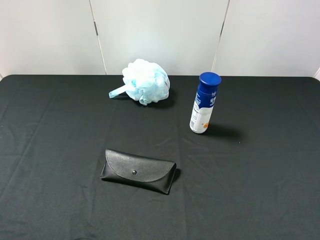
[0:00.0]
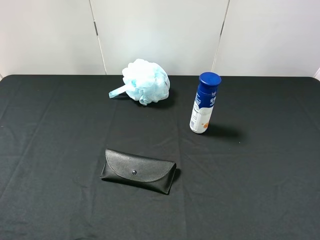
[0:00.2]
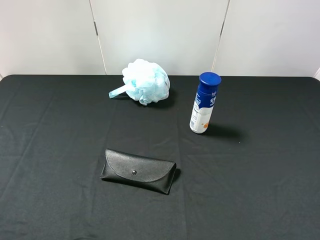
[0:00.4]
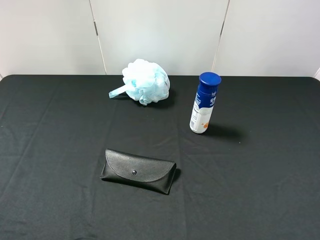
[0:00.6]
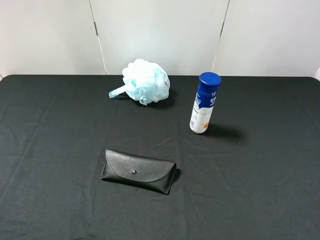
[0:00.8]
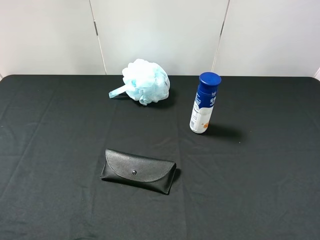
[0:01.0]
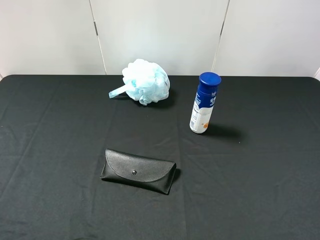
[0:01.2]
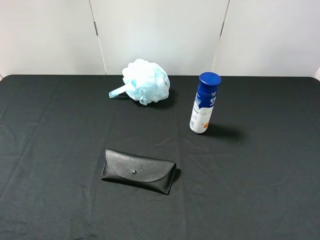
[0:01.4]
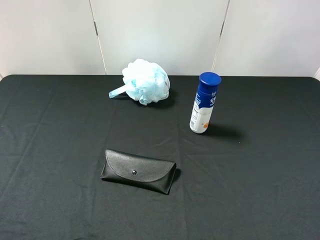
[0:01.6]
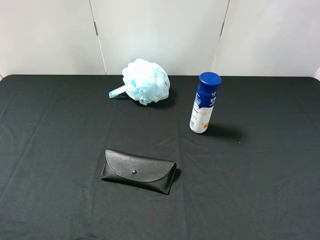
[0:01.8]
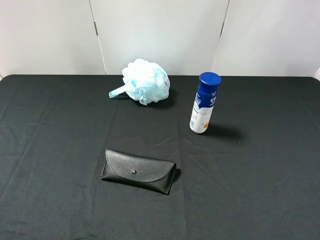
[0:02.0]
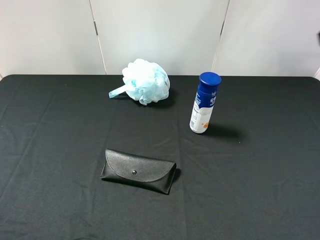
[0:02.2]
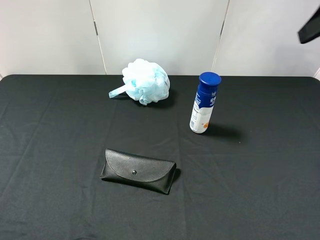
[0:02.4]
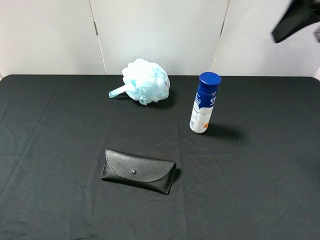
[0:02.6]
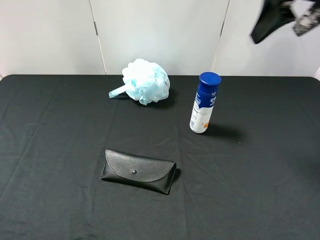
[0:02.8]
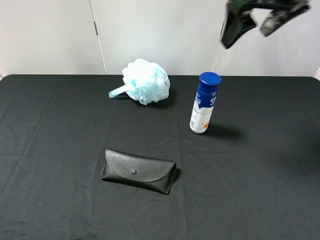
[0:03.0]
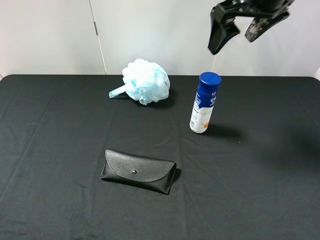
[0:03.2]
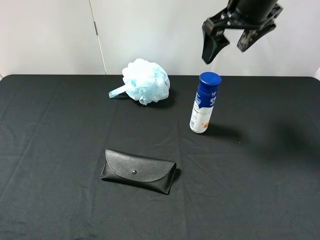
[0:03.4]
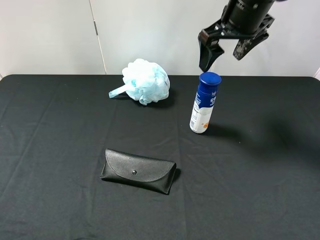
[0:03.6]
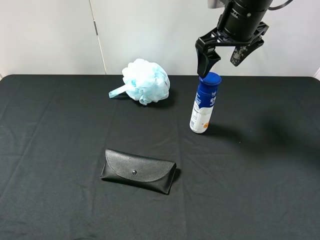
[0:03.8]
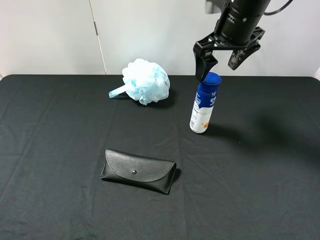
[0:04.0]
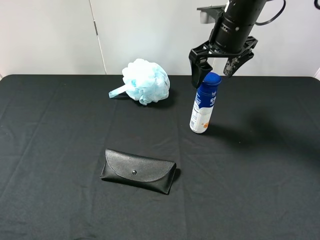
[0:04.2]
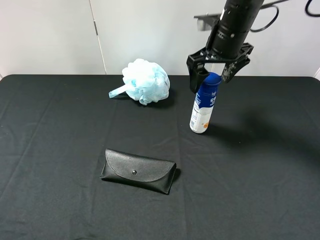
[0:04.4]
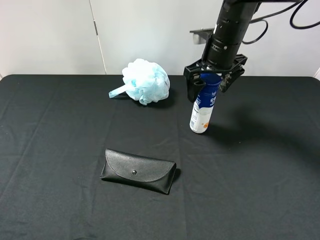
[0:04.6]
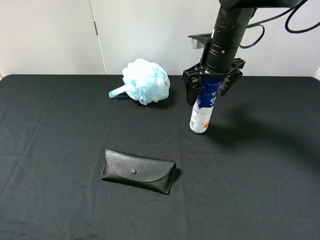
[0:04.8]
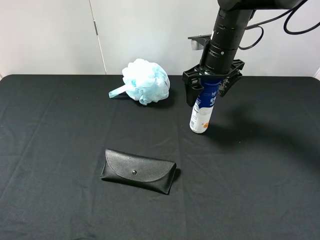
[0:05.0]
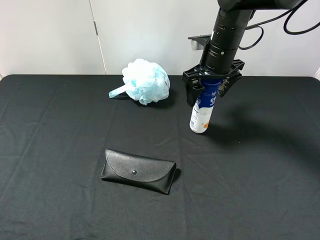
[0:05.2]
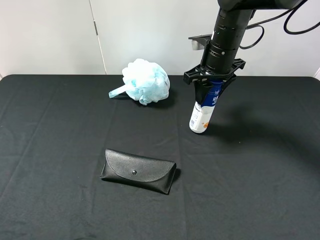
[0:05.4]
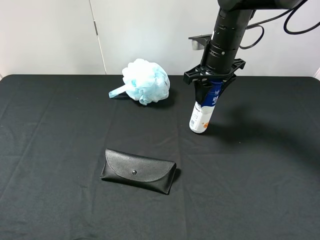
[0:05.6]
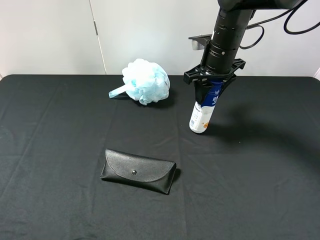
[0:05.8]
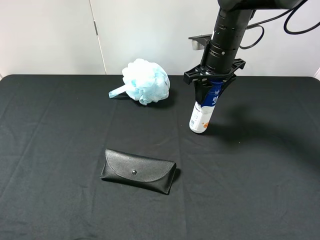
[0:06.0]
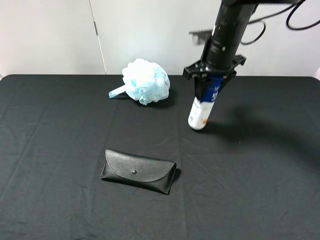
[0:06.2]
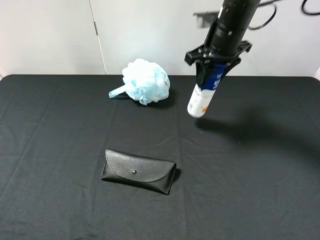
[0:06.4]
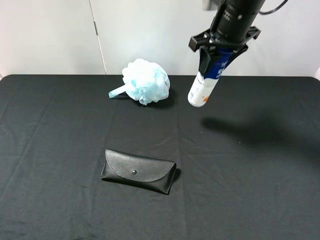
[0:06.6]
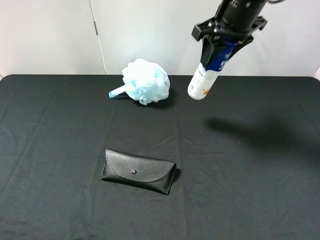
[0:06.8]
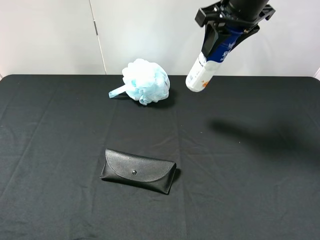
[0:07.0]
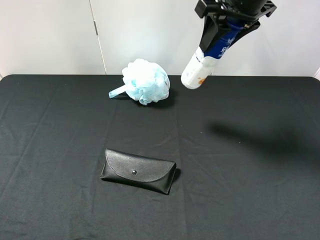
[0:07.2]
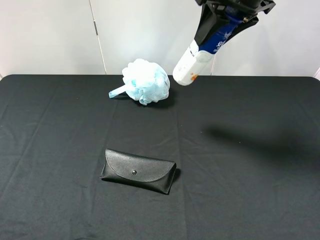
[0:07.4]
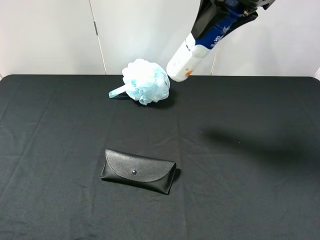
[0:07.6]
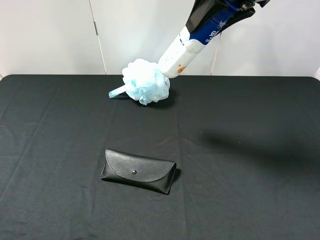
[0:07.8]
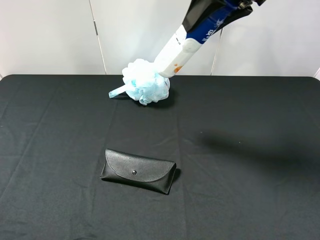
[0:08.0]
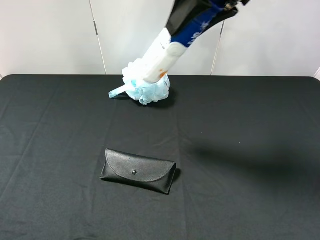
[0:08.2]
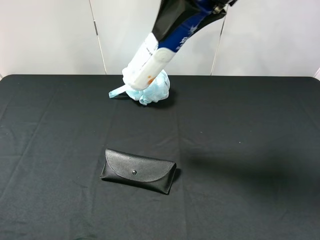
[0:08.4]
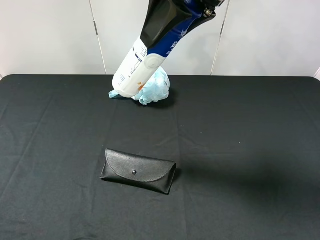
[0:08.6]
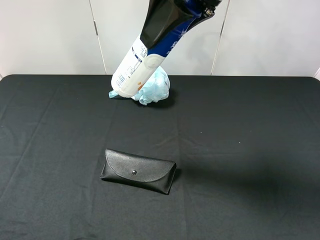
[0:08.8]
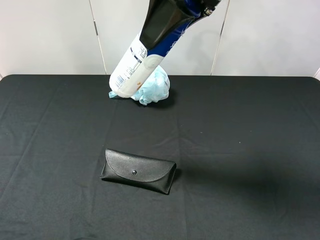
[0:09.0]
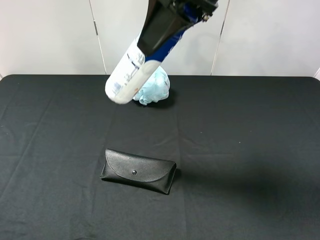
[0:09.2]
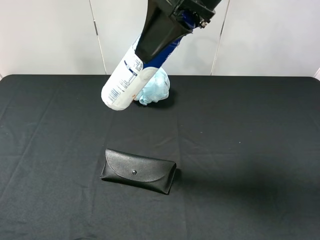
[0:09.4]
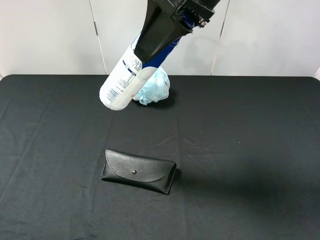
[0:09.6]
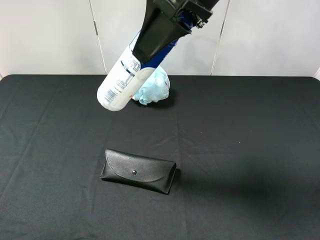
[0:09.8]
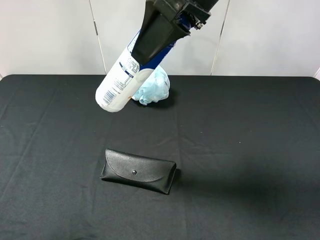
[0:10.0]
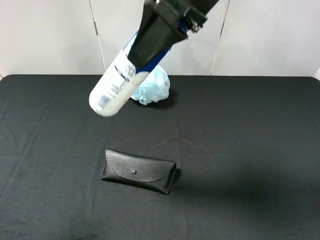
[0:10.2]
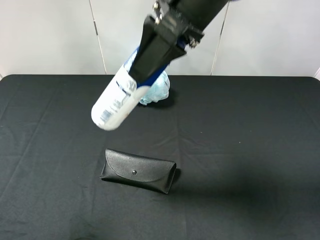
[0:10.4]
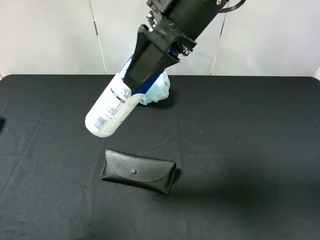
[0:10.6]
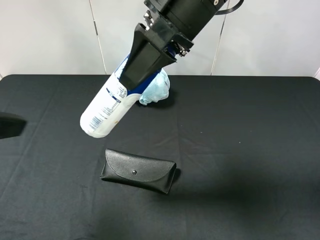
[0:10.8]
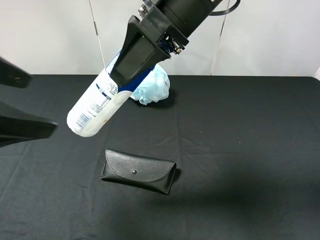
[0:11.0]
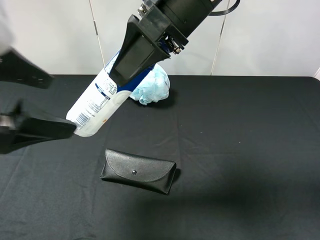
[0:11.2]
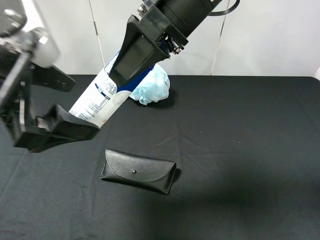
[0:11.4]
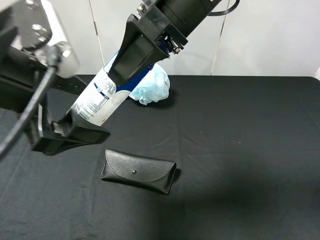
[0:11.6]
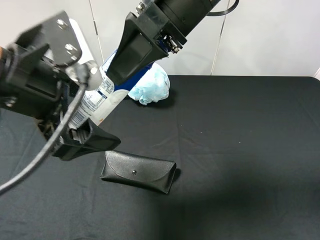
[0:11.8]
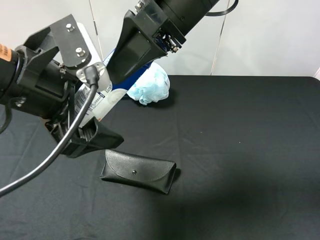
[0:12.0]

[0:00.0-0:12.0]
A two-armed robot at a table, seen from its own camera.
Task of the whole recording: use the right gripper to pick up the item and transfer it from the right gripper to the left gripper.
Step, 0:00.0 to 0:05.6: Use the right gripper to grab the yogurt on the right side of the table.
0:01.6 to 0:03.0: The right gripper travels forward and to the left by about 30 cm.
0:03.0 to 0:04.4: The right gripper travels downward and forward by roughly 15 cm.
0:04.4 to 0:06.0: The right gripper closes its fingers.
0:06.0 to 0:07.6: The right gripper moves upward and backward, approximately 15 cm.
0:07.6 to 0:09.0: The right gripper is displaced to the left and backward by roughly 10 cm.
0:09.0 to 0:10.4: The left gripper moves forward and upward, approximately 10 cm.
0:10.4 to 0:12.0: The left gripper shifts about 15 cm to the right, forward and downward.

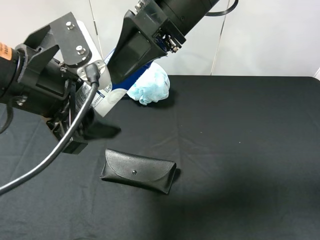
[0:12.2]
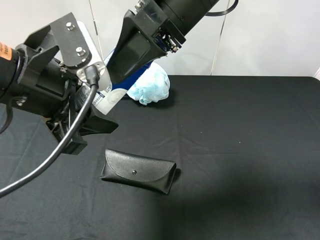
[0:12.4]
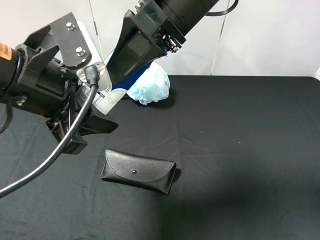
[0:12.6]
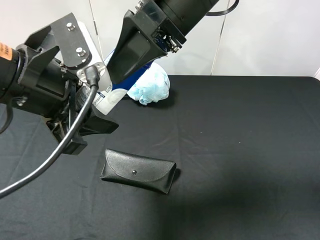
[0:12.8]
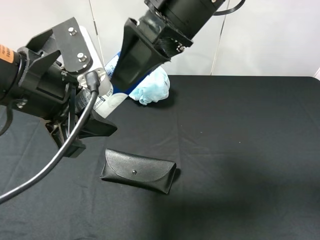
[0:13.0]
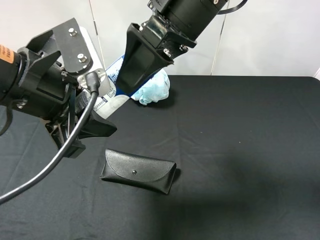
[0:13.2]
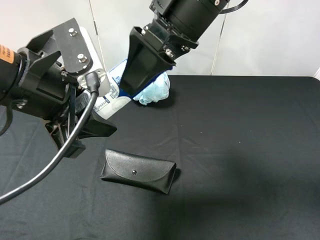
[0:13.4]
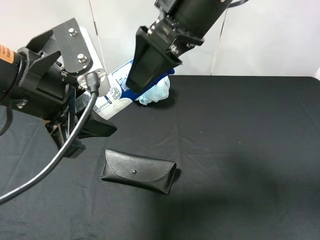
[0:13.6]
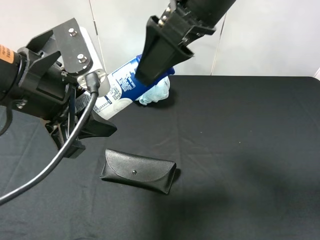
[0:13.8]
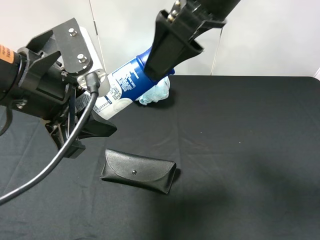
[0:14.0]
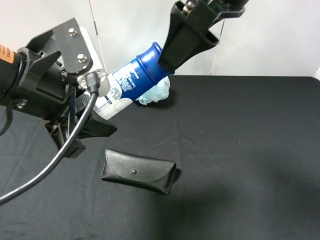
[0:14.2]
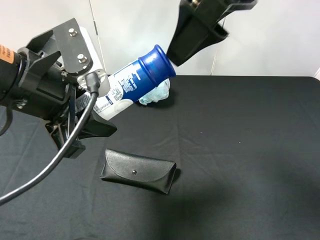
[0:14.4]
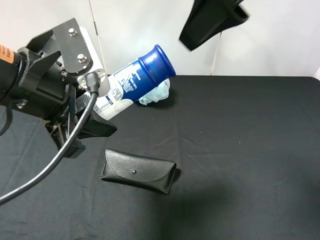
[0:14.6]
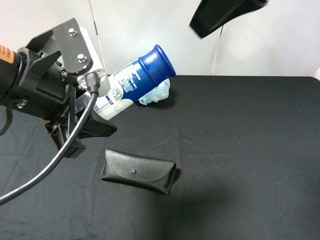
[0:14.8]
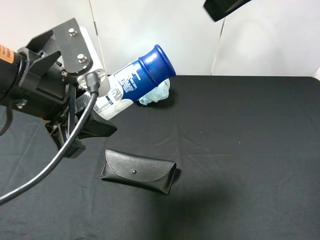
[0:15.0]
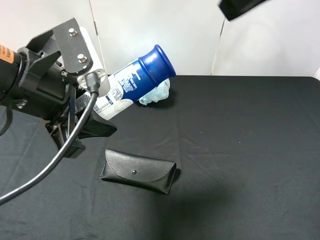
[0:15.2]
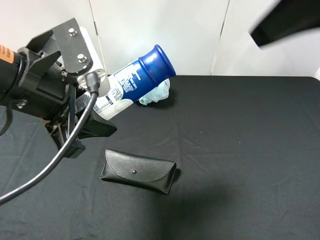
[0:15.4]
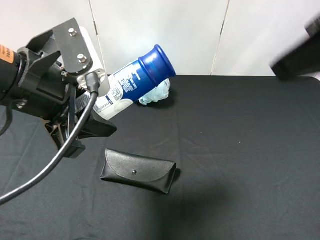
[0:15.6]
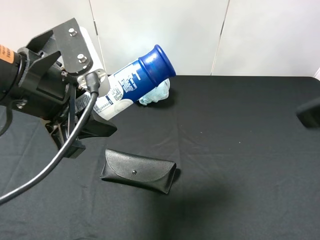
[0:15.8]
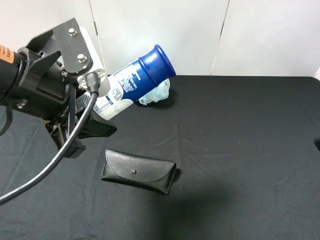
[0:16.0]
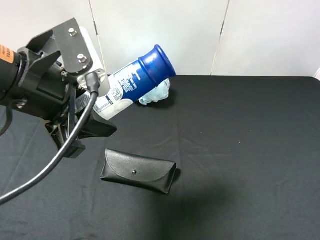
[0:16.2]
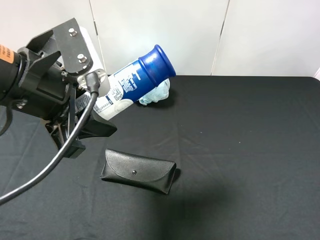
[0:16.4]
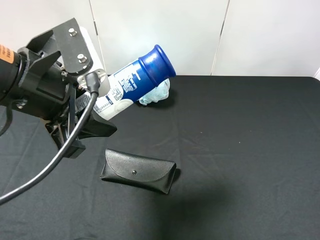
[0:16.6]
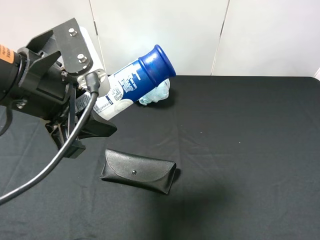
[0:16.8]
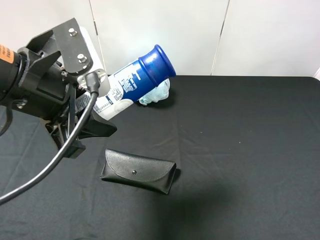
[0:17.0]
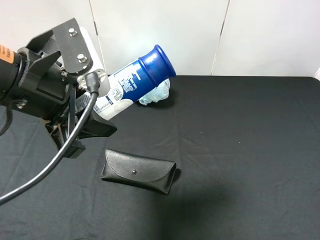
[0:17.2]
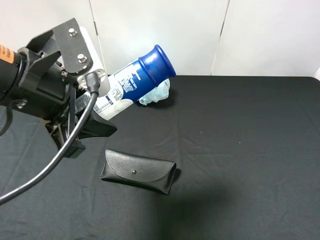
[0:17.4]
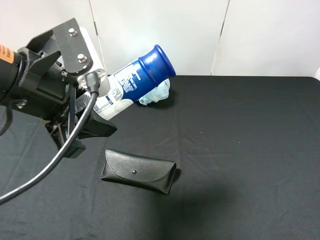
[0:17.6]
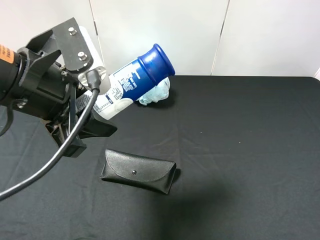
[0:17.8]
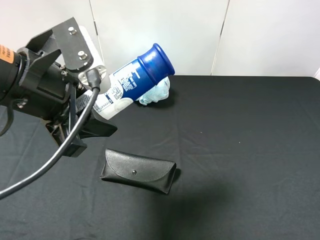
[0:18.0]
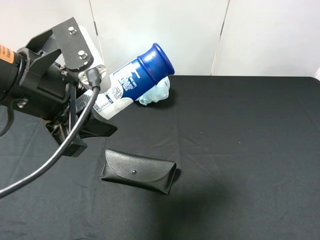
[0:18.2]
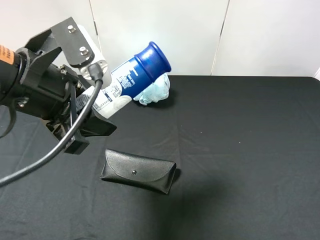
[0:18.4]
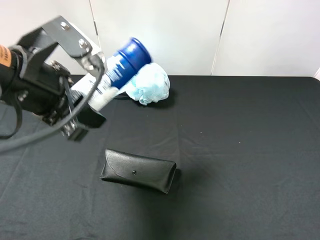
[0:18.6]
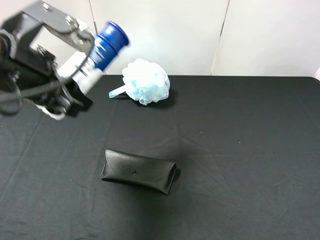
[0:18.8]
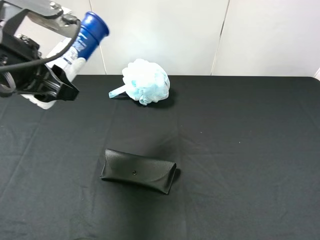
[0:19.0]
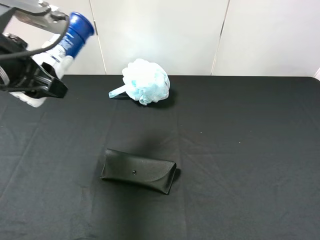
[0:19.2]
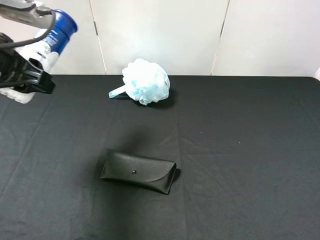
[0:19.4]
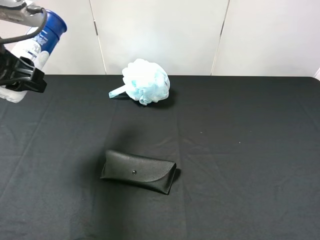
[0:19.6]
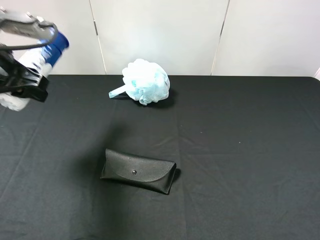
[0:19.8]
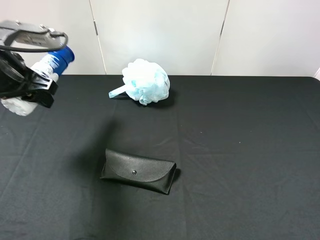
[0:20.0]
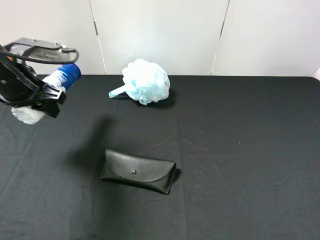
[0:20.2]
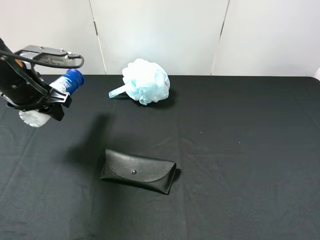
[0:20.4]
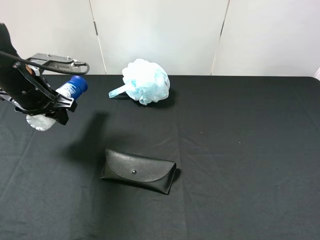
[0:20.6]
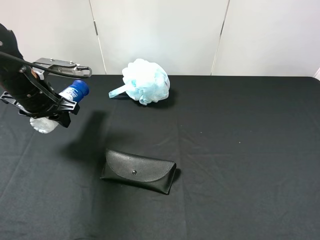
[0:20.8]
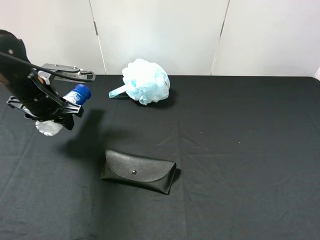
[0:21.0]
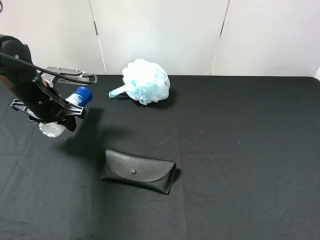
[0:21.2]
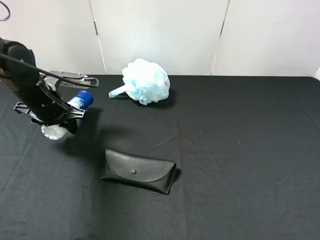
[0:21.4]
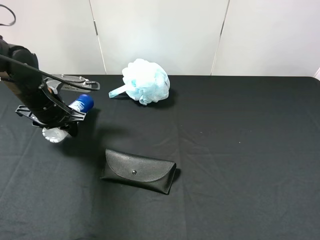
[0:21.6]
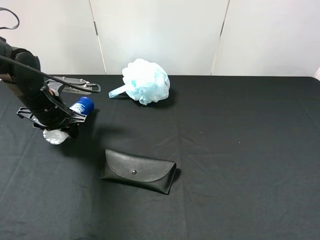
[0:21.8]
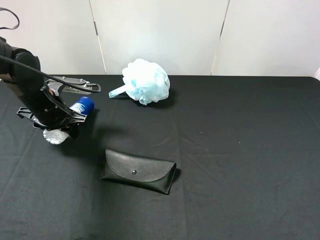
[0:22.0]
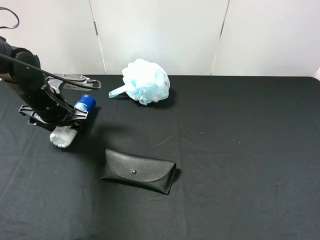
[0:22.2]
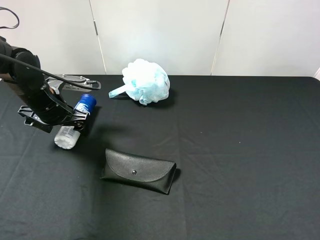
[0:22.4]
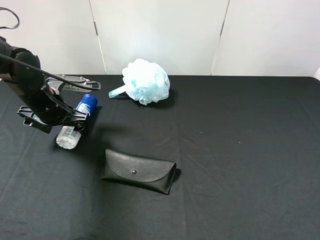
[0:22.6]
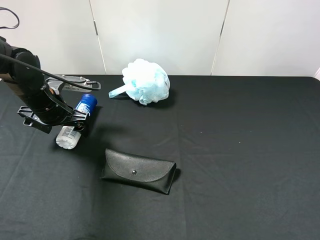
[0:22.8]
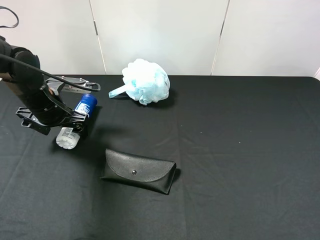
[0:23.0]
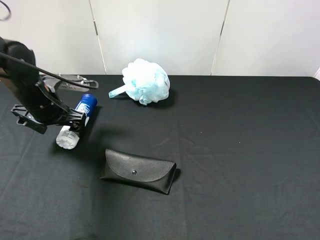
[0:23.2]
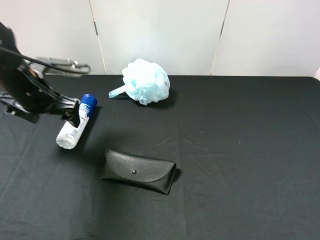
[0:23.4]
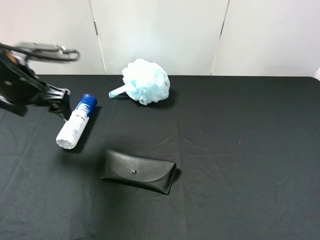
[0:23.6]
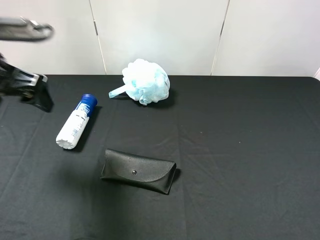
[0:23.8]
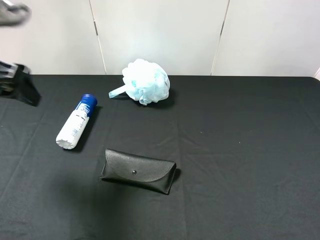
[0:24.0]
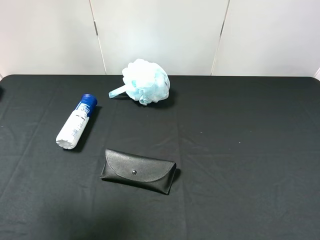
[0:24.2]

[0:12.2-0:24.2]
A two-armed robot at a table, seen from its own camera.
Task of the whole recording: use the right gripper to pick up the item and transfer it from the right gripper to the left gripper.
Step, 0:13.4 to 0:22.4: The left gripper places yogurt on the left side of the table.
0:12.2 to 0:13.8: The right gripper opens.
0:13.8 to 0:15.2: The right gripper shifts some 15 cm to the right, upward and backward.
0:15.2 to 0:16.6: The right gripper travels downward, backward and to the right by approximately 25 cm.
0:18.2 to 0:19.8: The left gripper moves to the left and forward, approximately 15 cm.
0:19.8 to 0:21.2: The left gripper travels downward and forward by roughly 15 cm.
0:21.2 to 0:22.6: The left gripper opens up.
0:22.6 to 0:24.2: The left gripper goes approximately 30 cm upward and backward.
